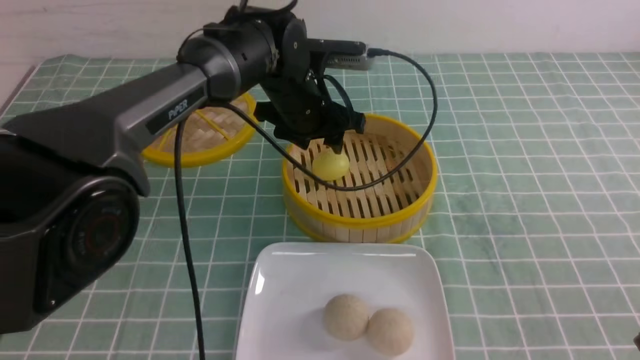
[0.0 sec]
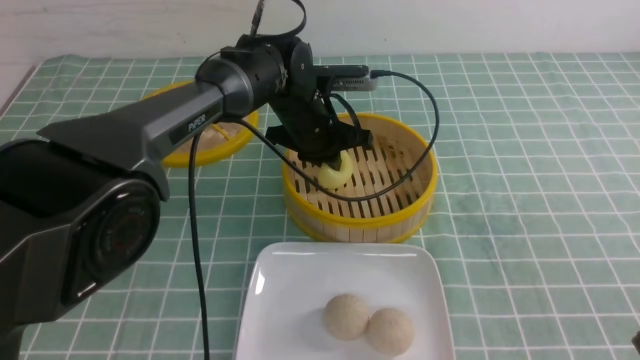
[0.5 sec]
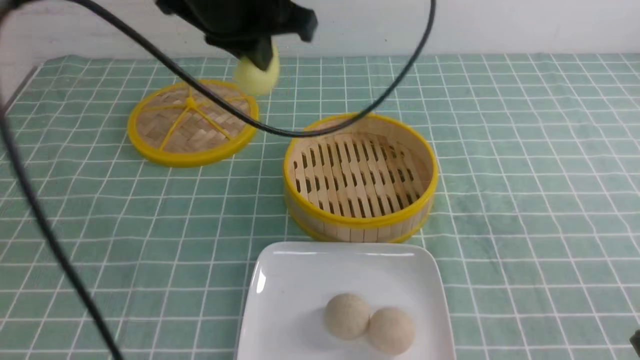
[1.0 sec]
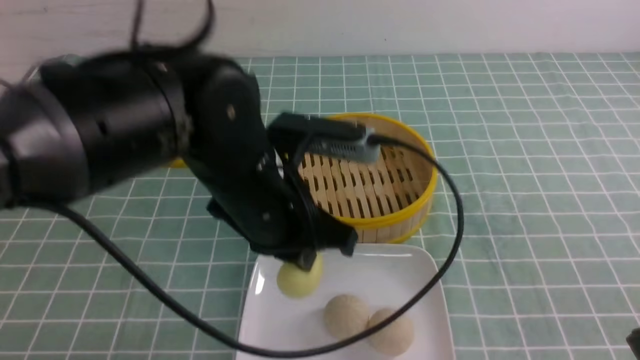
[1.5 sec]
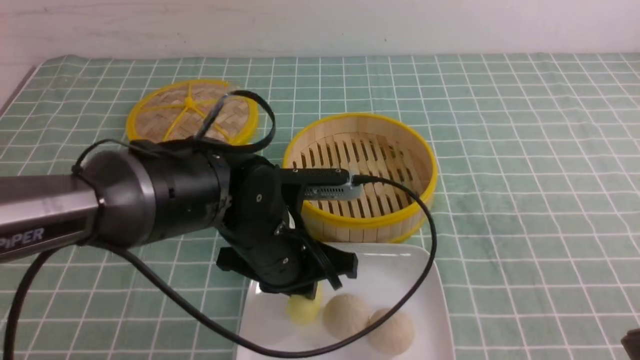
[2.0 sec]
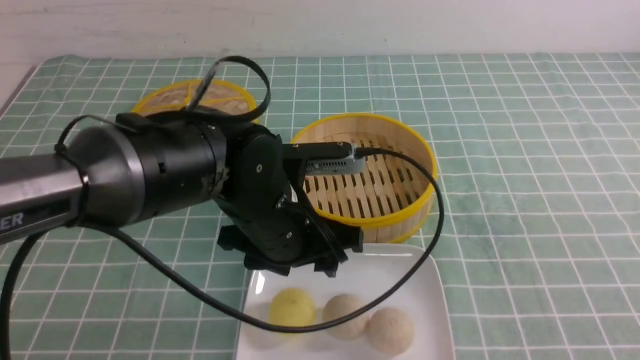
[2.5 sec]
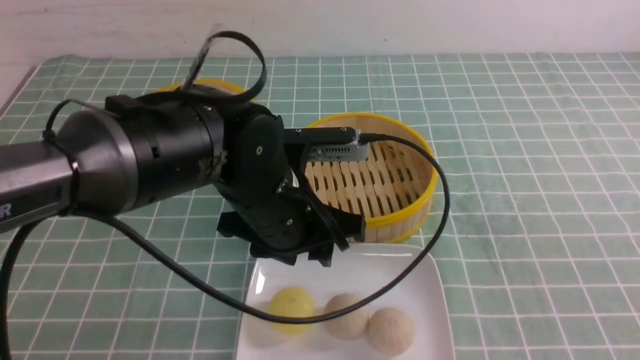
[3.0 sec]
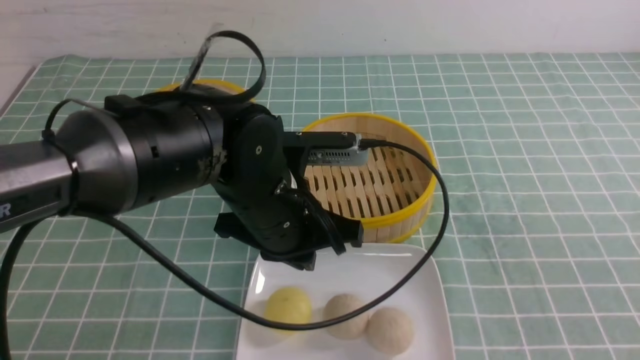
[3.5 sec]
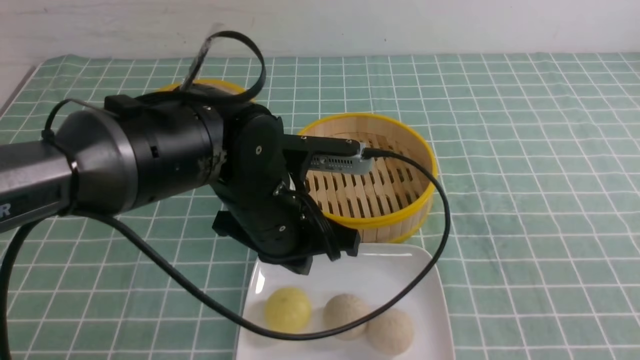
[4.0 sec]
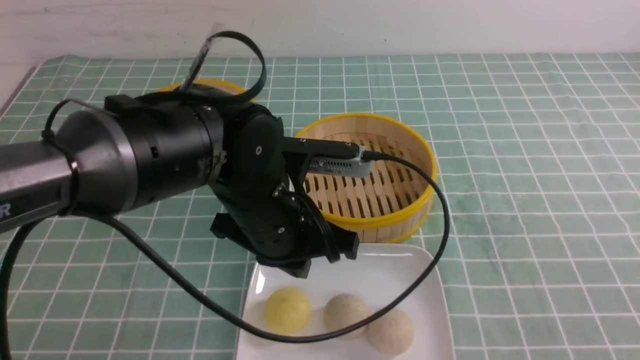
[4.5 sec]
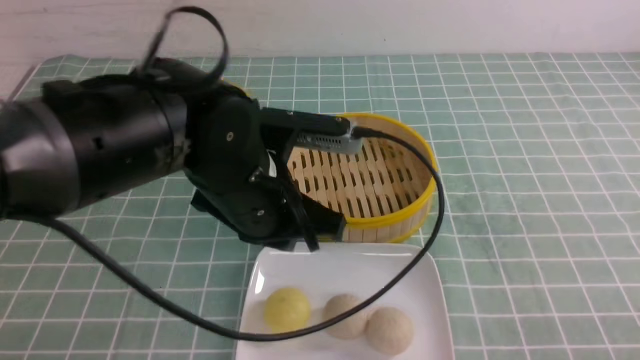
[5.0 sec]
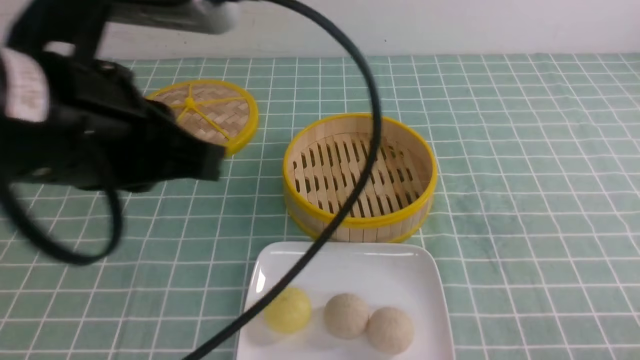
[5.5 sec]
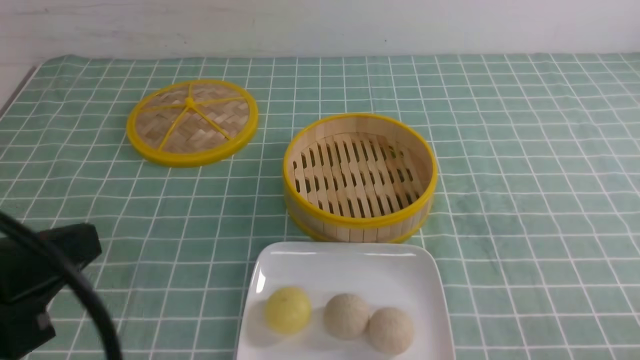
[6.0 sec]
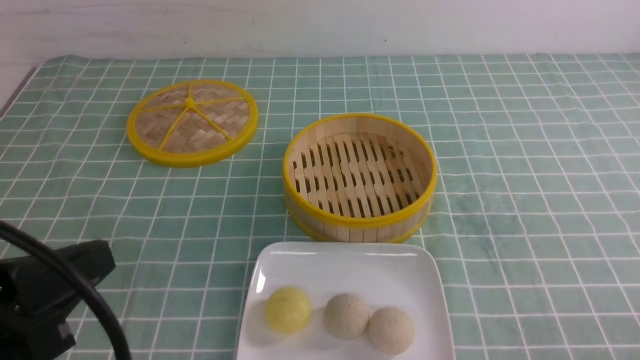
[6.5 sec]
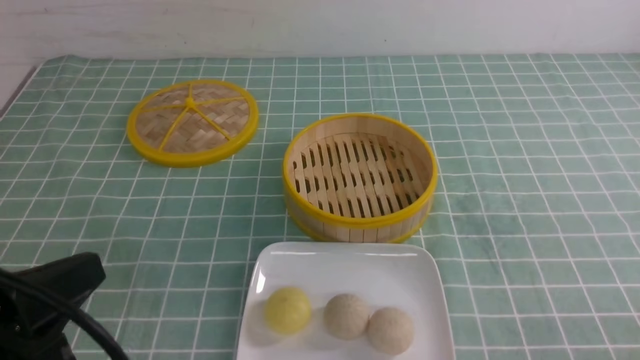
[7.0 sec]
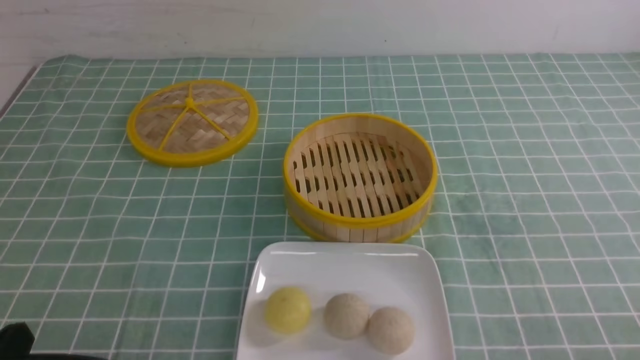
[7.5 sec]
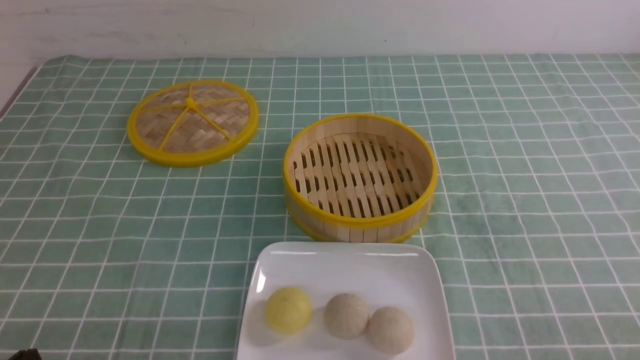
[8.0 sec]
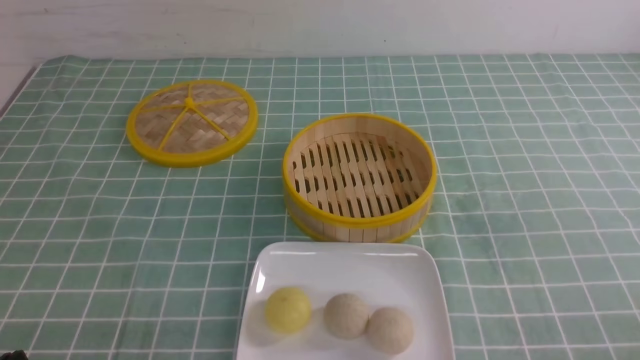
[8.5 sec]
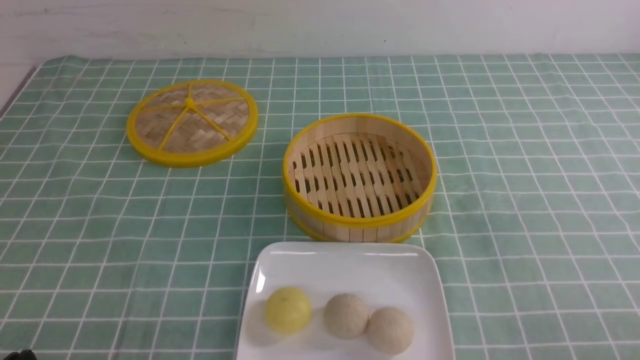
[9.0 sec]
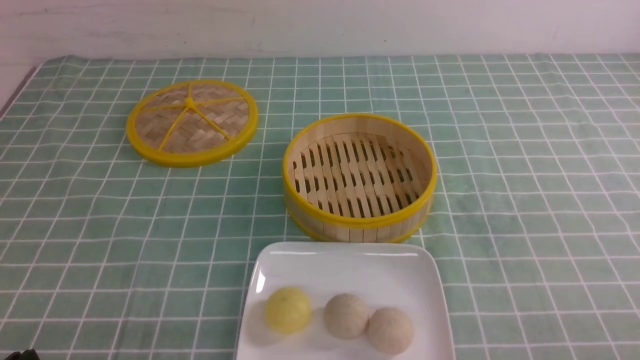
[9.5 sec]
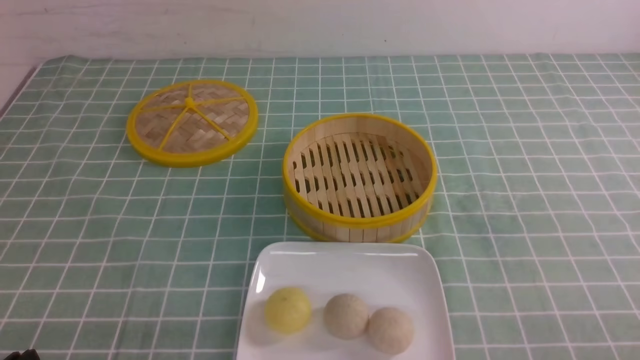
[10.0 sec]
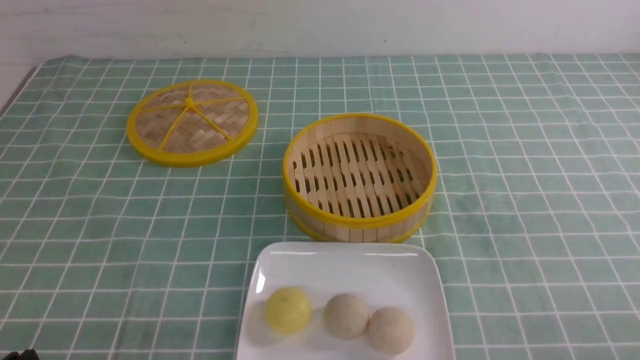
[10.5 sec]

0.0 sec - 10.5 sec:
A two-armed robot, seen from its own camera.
Step, 1.0 sec - 2.0 sec: use the left arm to put the steamed stuffed bun into the plate.
0.0 sec - 2.0 sec: The left gripper travels backward by about 20 cm, travels upward and back again, about 15 cm each way, and closes up.
2.0 sec - 4.0 sec: The left gripper opens, then closes again.
4.0 sec - 6.5 sec: The left gripper is displaced backward, to the left and upward by roughly 25 cm; the right gripper is displaced downward by some 10 cm.
6.5 sec - 8.5 sec: The left gripper heads downward, covering roughly 15 cm.
8.5 sec - 10.5 sec: Both grippers stay about where they are.
